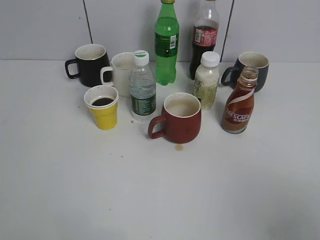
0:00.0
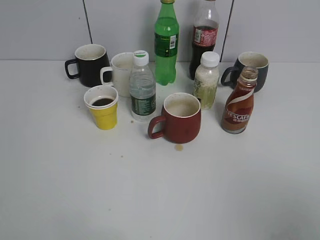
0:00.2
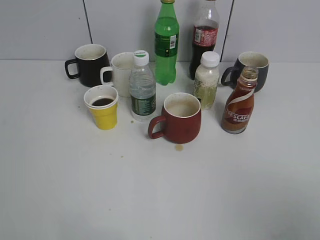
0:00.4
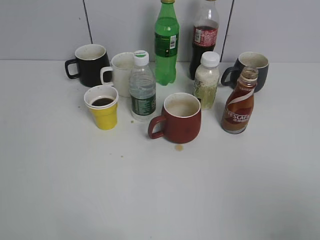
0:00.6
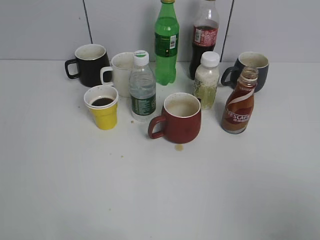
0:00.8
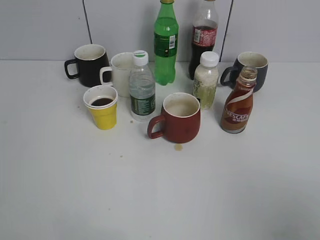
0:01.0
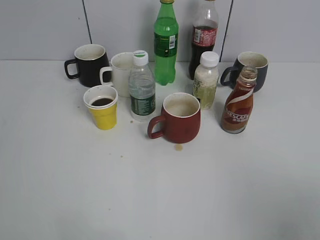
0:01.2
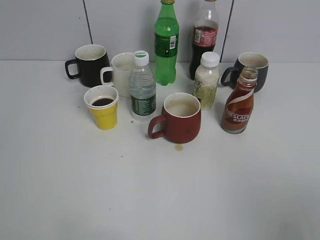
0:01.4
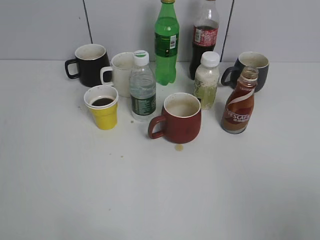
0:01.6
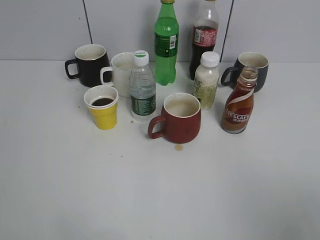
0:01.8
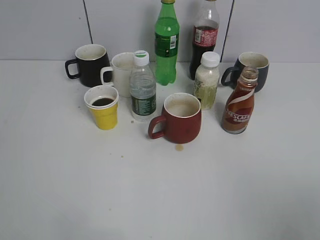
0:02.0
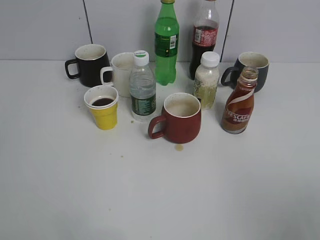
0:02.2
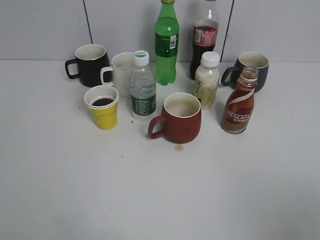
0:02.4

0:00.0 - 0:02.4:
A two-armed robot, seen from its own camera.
0:00.0 - 0:01.2: The grippers stay close to where they were, moving slightly.
0:01.2 - 0:02.4: The grippers stay close to where they were, moving slightly.

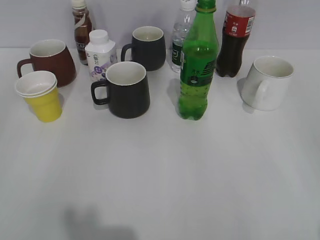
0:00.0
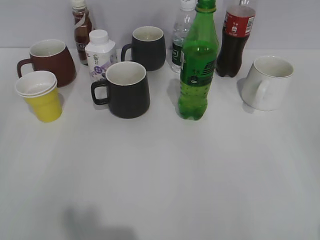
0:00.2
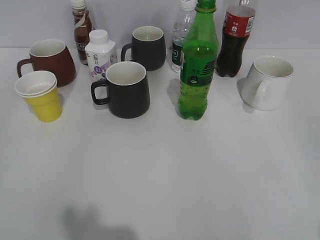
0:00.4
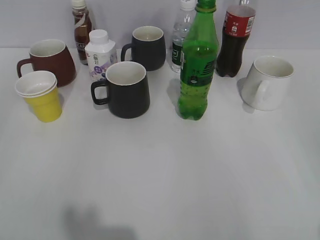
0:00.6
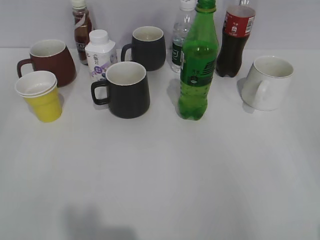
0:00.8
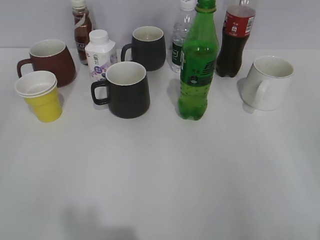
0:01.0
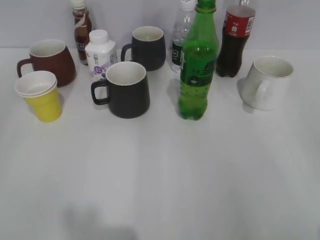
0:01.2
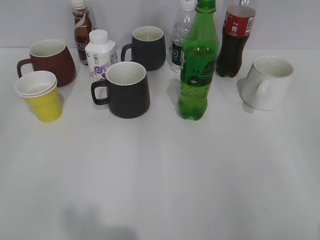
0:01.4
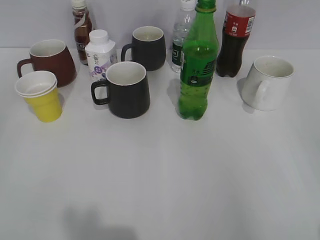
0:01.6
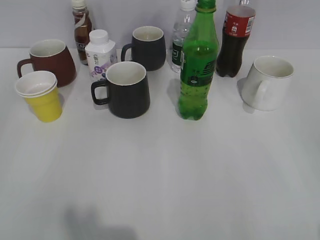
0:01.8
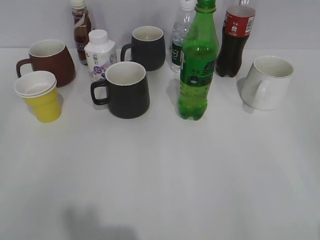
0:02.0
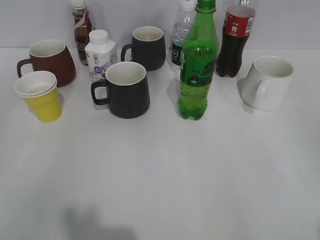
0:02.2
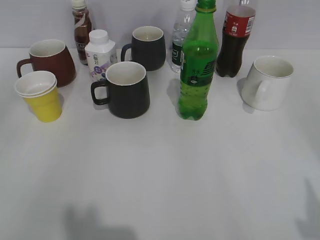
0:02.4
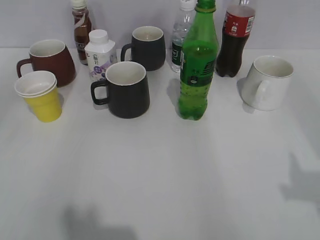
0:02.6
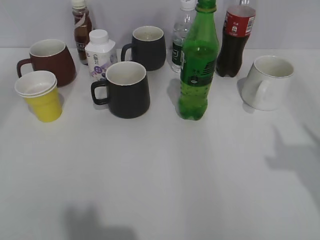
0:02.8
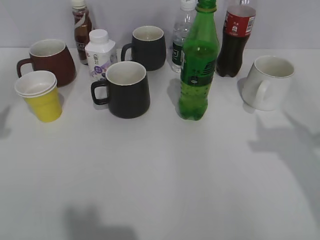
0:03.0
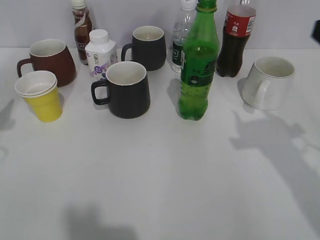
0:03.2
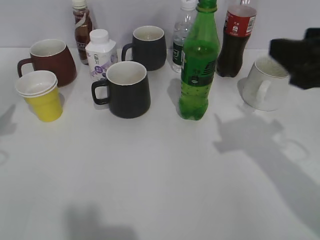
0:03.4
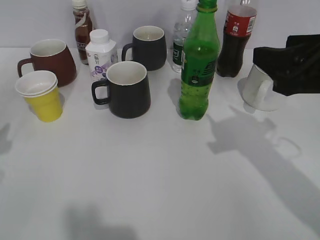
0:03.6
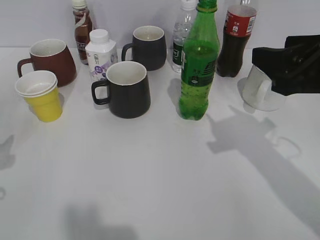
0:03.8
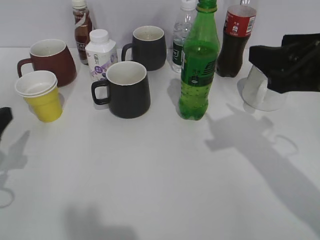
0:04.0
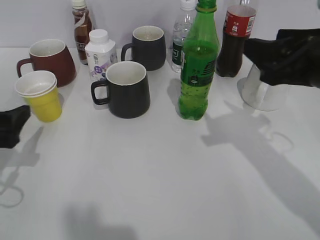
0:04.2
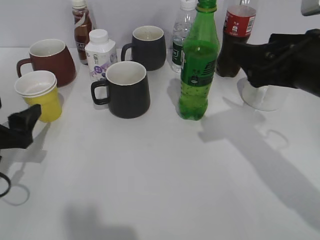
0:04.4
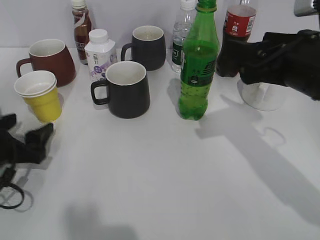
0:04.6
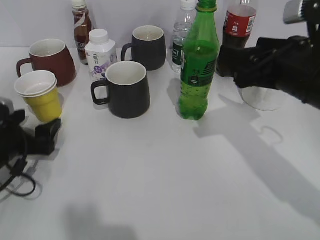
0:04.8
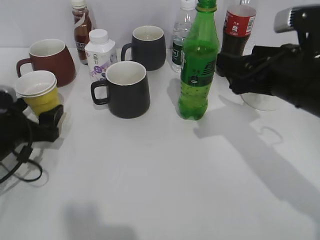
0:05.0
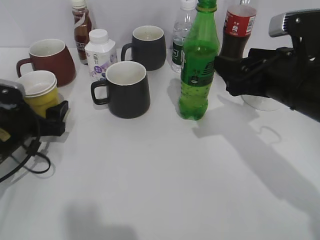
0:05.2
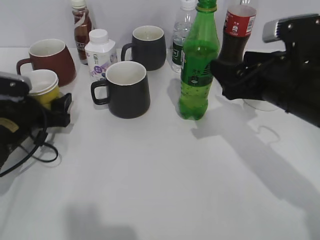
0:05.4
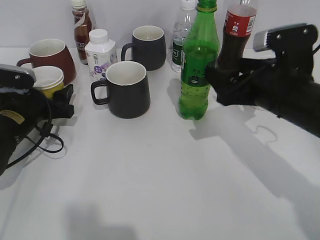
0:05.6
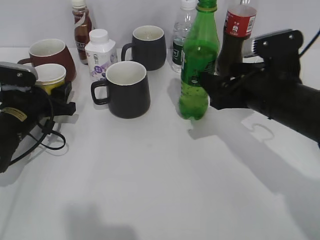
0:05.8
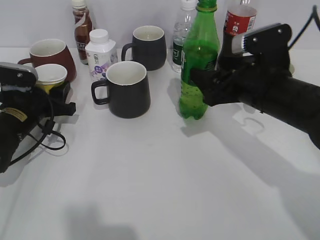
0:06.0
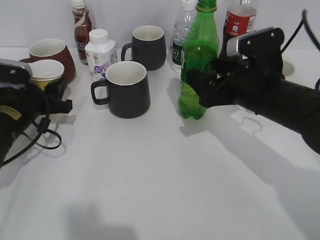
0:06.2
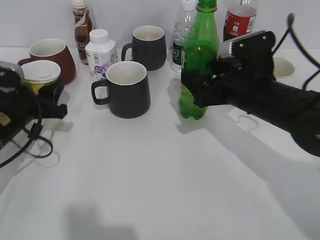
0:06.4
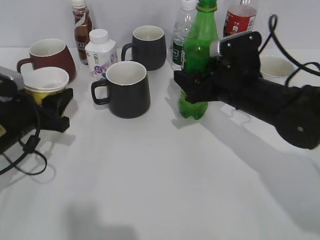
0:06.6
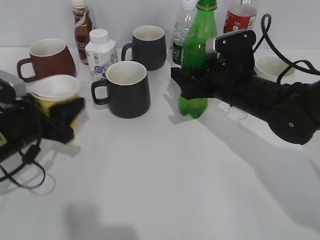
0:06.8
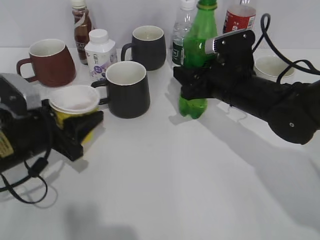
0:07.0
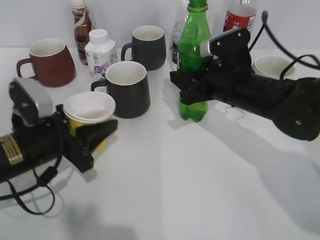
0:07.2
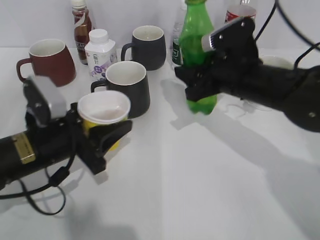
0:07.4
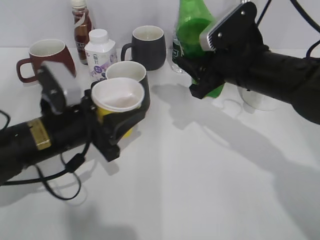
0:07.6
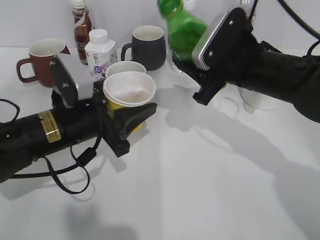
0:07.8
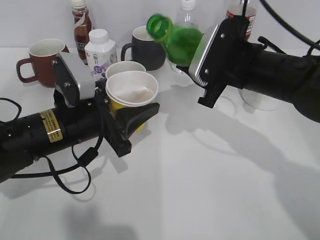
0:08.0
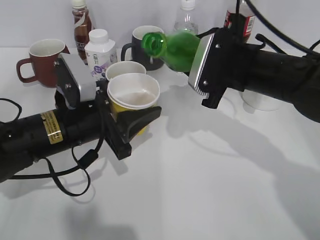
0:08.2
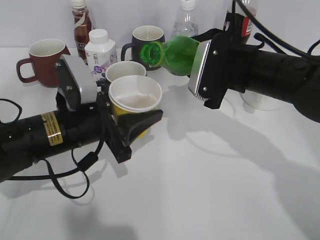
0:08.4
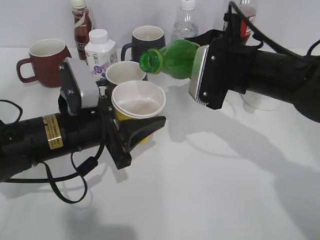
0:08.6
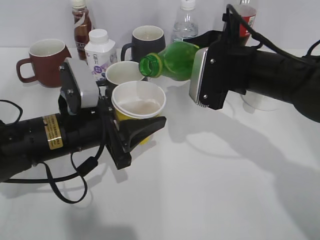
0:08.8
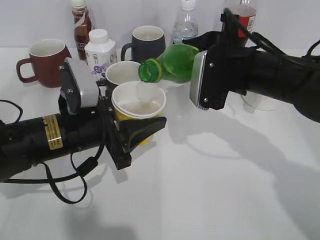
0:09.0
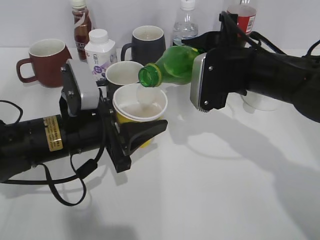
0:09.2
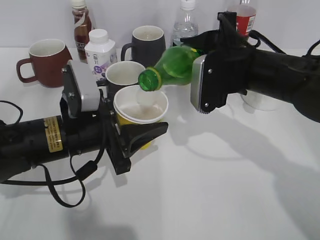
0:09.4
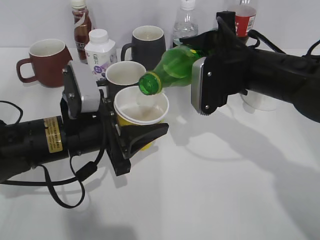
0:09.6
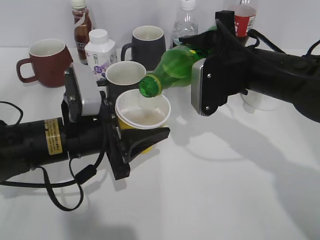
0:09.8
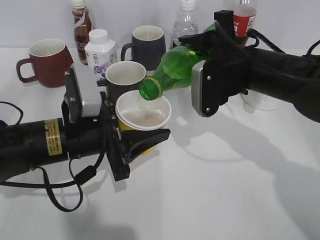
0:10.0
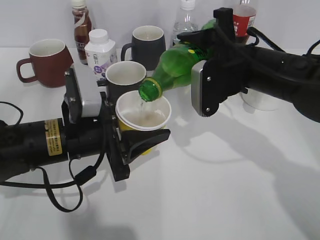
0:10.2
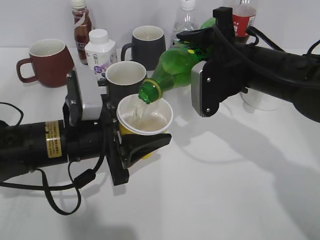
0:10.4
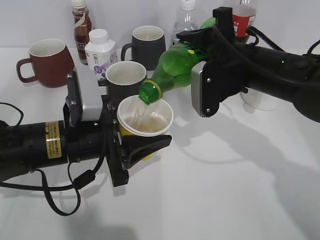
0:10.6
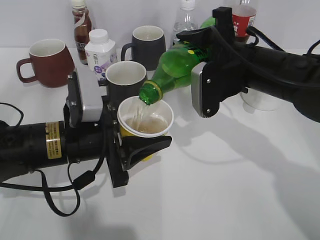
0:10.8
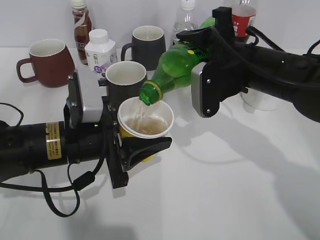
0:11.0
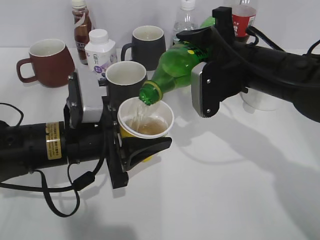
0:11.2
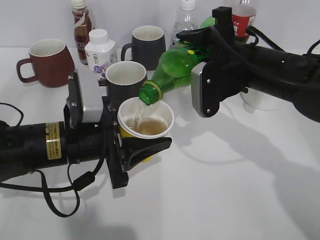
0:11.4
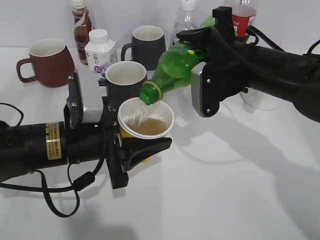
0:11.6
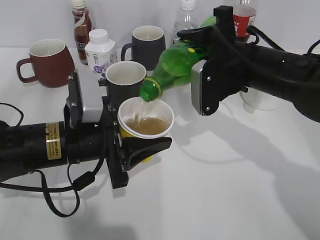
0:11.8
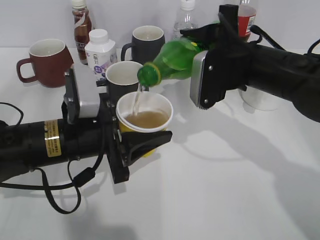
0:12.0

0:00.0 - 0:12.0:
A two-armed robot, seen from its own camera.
Step, 0:02.2 - 0:06.8: Grasp the bottle with sprite with right gripper.
0:01.6 - 0:03.0: Both grippers travel together forward, roughly 20 cm. The left gripper opens its fingers.
0:03.0 - 0:04.4: The right gripper heads to the left, forward and downward, covering about 15 cm, and opens. The left gripper moves downward, about 15 cm.
0:04.4 - 0:06.0: The left gripper shifts approximately 10 cm forward, and closes up; the right gripper goes roughly 5 cm downward.
0:06.0 - 0:07.6: The left gripper heads to the right and backward, covering approximately 10 cm. The right gripper closes its fingers.
0:09.0 - 0:12.0: The grippers stay close to where they were, moving slightly.

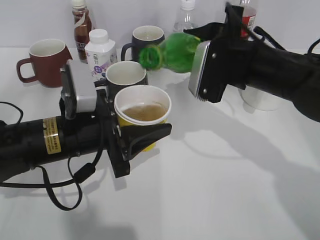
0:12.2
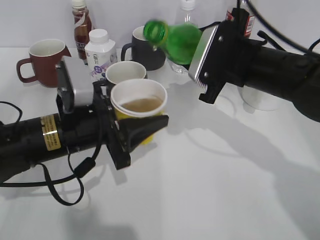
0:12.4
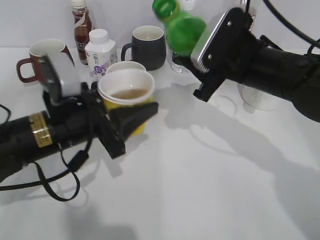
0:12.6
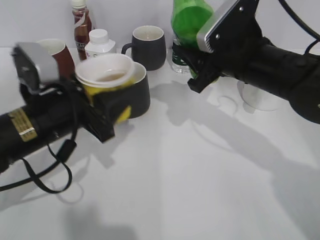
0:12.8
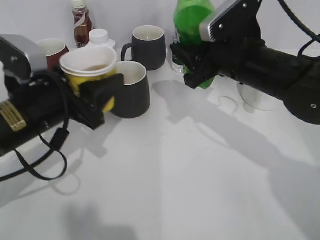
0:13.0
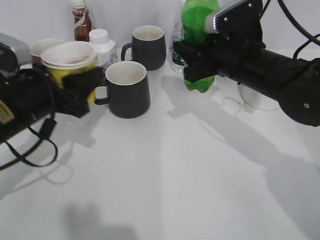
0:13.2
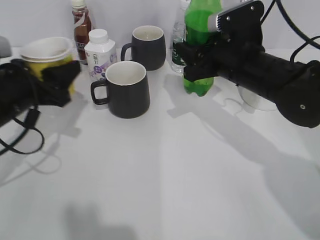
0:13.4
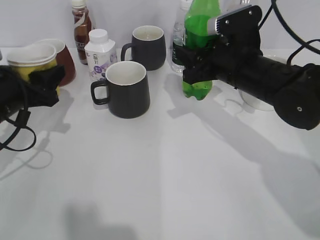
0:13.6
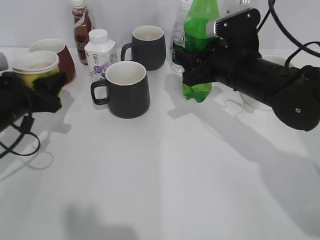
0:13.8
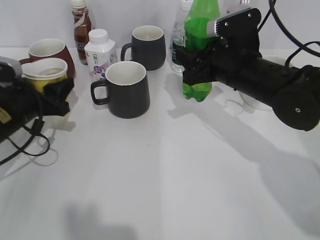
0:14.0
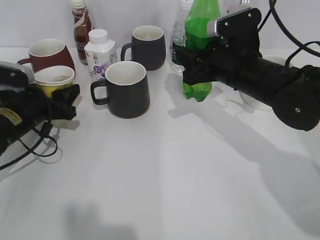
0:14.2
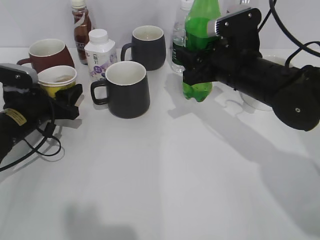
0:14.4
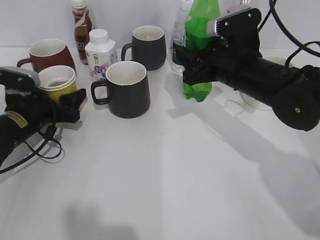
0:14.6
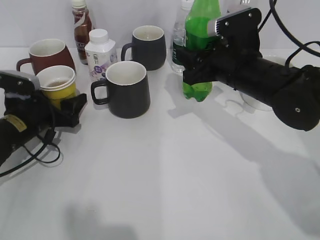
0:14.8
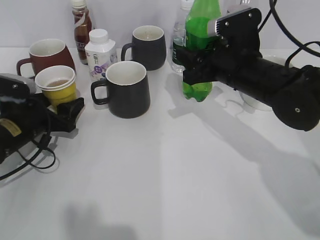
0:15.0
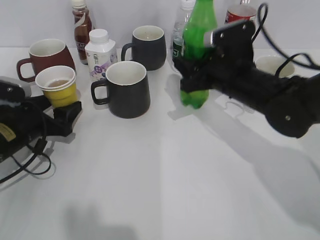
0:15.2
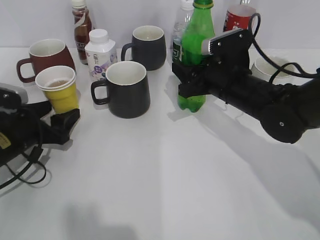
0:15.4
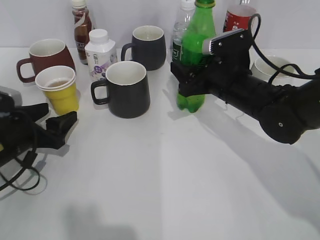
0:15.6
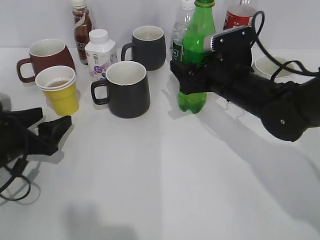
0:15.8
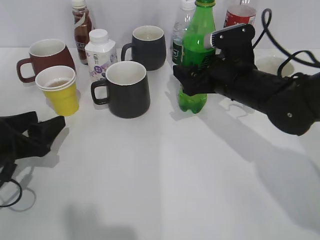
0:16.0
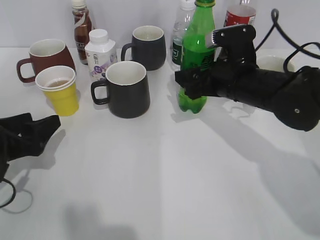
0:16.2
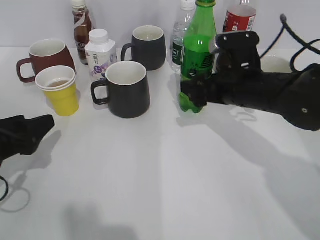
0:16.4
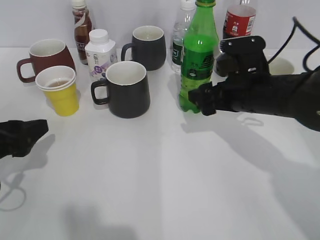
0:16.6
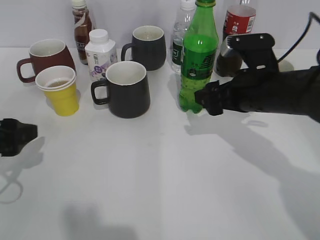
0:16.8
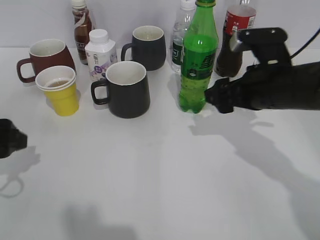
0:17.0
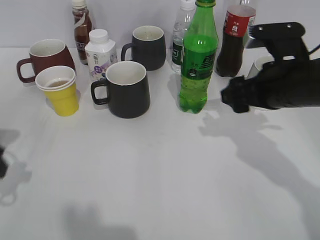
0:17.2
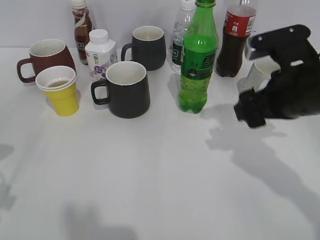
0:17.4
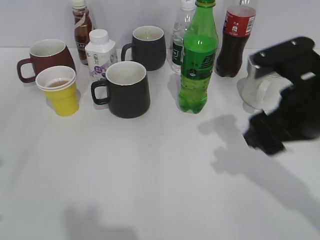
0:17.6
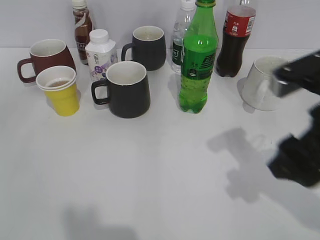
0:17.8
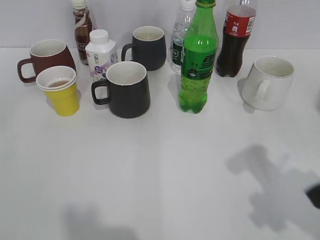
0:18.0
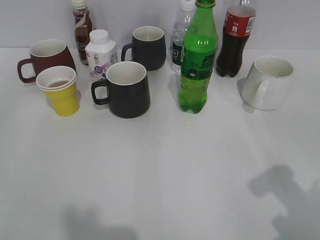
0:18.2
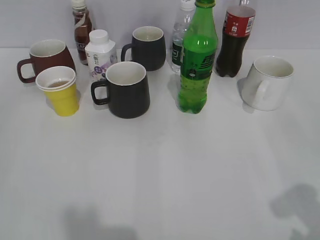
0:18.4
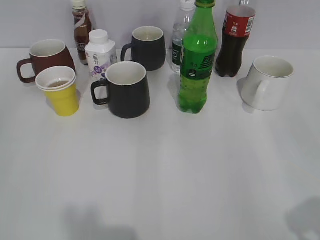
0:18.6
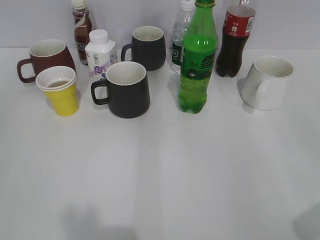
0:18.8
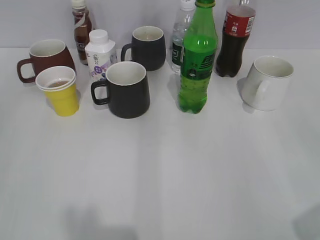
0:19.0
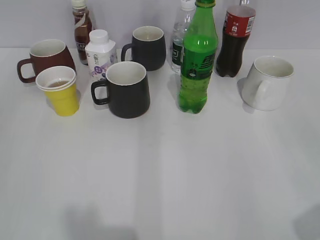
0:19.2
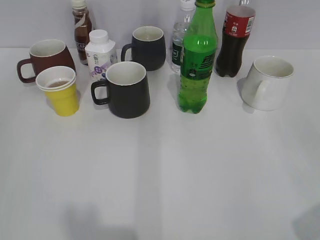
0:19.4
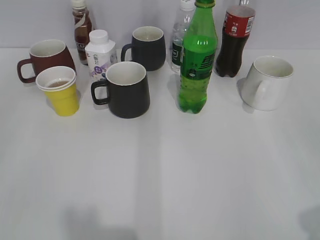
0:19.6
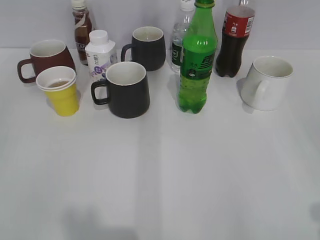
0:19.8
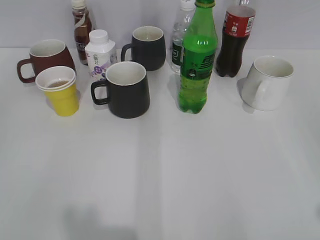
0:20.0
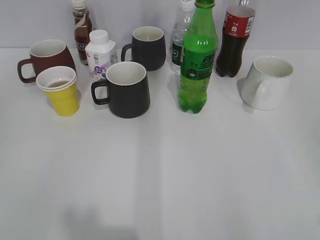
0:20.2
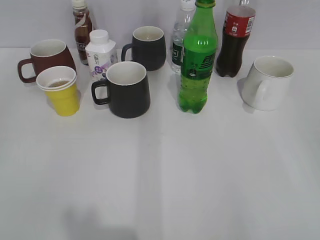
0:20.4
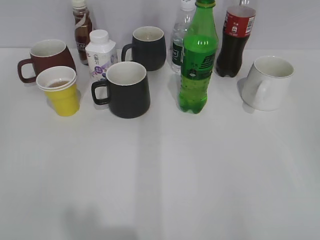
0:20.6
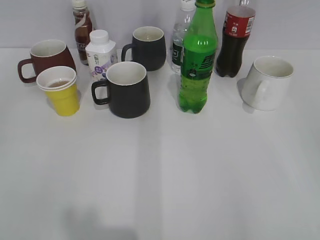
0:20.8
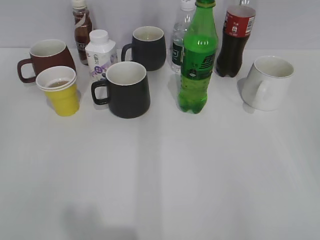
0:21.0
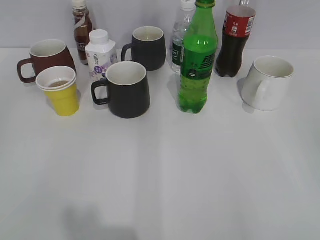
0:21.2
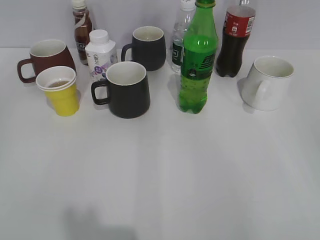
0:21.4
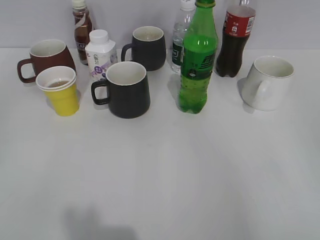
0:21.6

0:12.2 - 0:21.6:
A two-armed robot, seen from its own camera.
Step, 0:12.4 - 0:14.8: Place the yellow paper cup on the table with left gripper.
Step, 0:15.0 - 0:16.2: Place the sprite bottle on the table with right gripper.
0:12.2 - 0:13.8: The left gripper moves to the left and forward, approximately 15 cm.
0:13.8 - 0:15.4: The left gripper shifts roughly 5 cm downward, and opens.
0:15.4 - 0:17.0: The right gripper goes approximately 5 cm backward, and opens up. Meanwhile the left gripper shifts roughly 10 cm upward and backward.
0:17.0 - 0:18.4: The left gripper heads backward and upward, covering roughly 20 cm. Meanwhile the right gripper is displaced backward and to the right by some 25 cm.
0:18.4 - 0:20.0: The right gripper changes place by roughly 5 cm.
